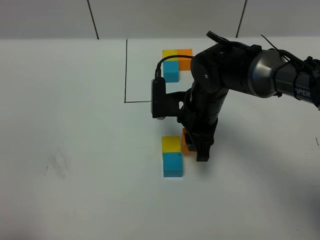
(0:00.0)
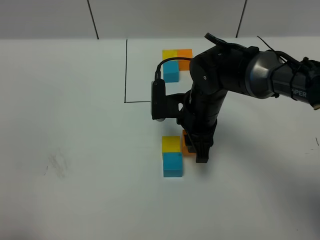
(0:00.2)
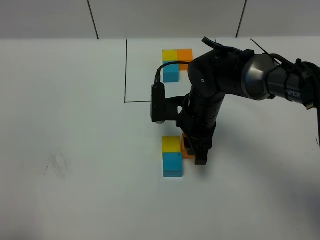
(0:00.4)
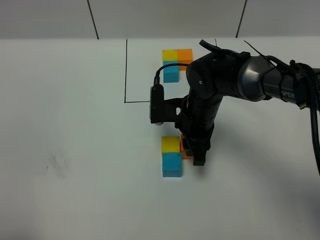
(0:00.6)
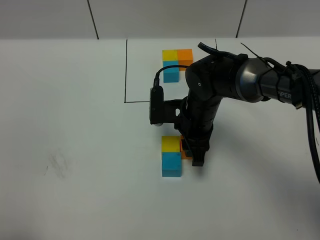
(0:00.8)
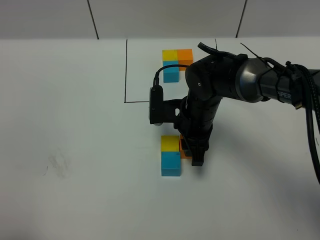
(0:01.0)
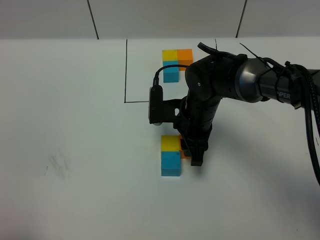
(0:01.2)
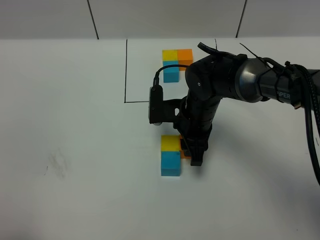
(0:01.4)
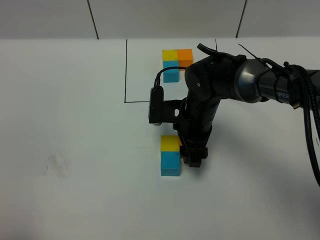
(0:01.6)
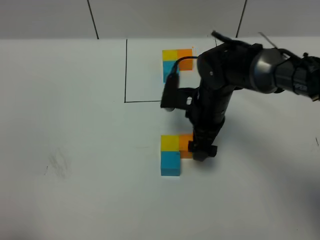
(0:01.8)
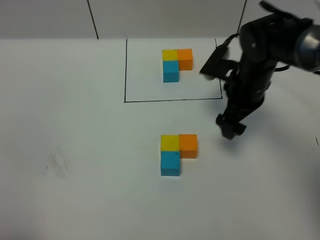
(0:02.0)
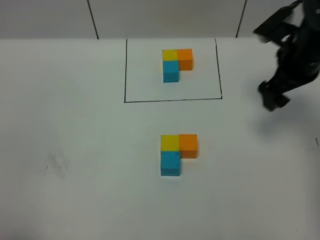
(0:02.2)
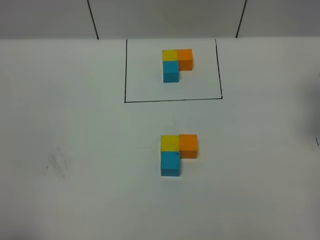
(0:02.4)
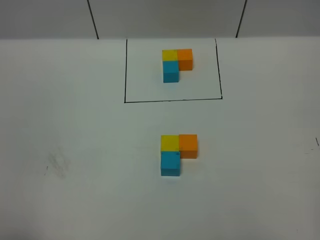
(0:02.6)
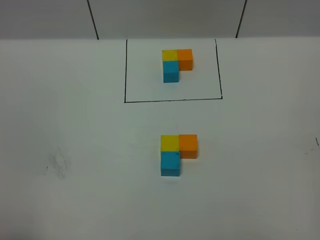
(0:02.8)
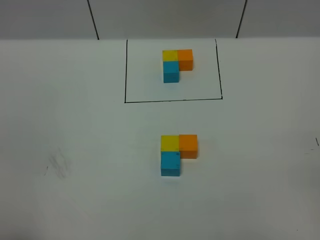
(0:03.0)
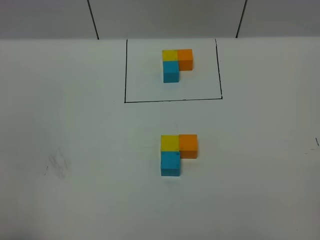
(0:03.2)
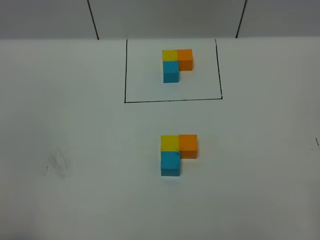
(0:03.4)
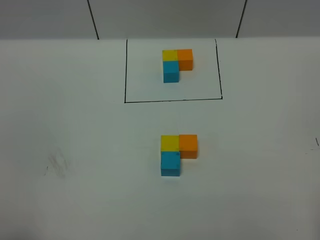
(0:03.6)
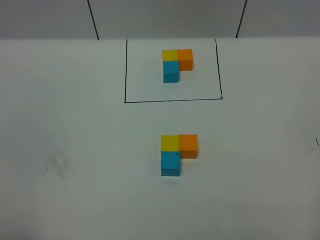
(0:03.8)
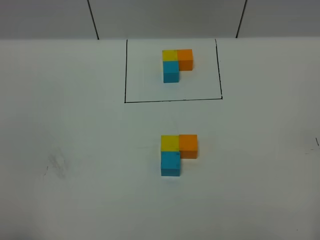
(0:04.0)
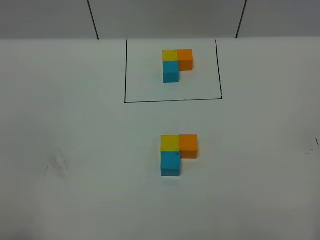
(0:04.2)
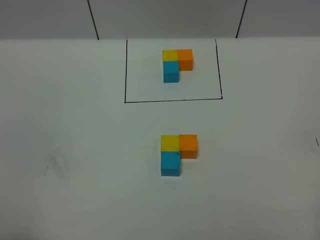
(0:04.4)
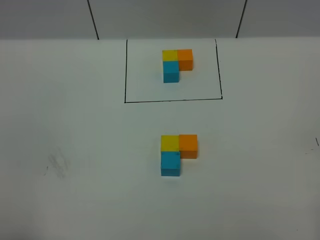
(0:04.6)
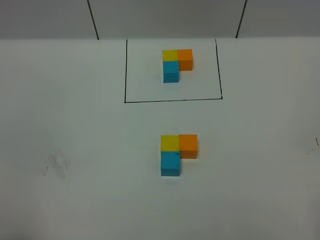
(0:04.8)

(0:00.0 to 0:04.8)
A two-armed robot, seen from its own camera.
Task of the whole recording: According to the building block template in front, assemble the scattered blocks together.
Step, 0:00.0 - 0:02.0: Put the orange cube on the right of the yellow cube.
0:00.0 - 0:01.6: The right gripper opens up.
0:01.6 - 0:03.2: The right gripper heads backward, to the right and upward, covering approximately 40 cm, and opens up.
